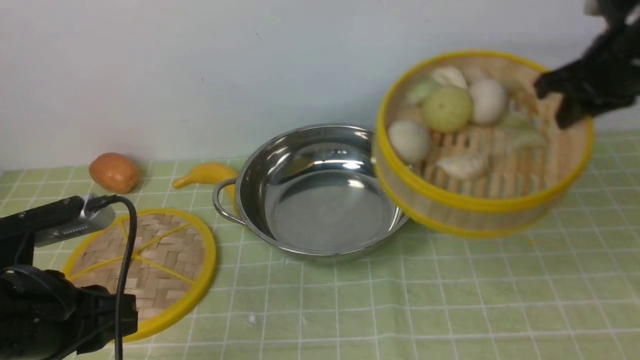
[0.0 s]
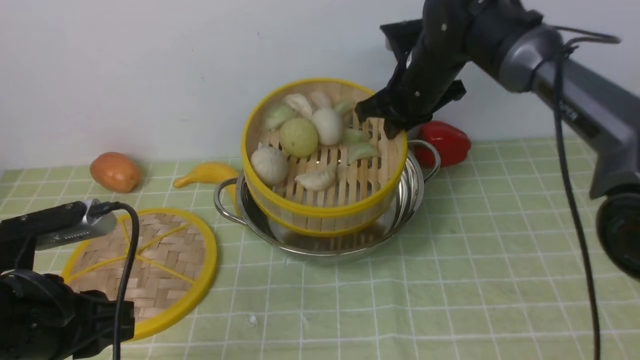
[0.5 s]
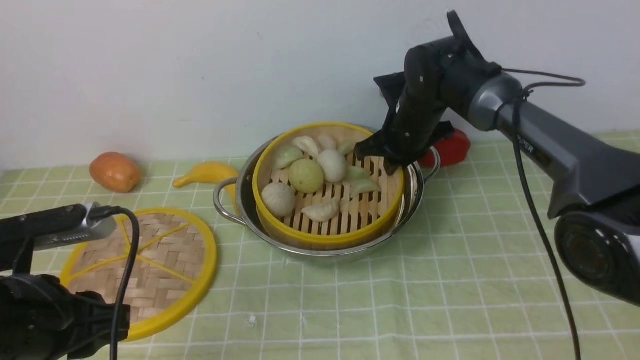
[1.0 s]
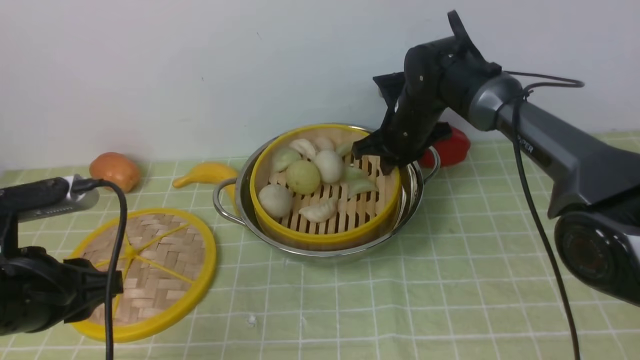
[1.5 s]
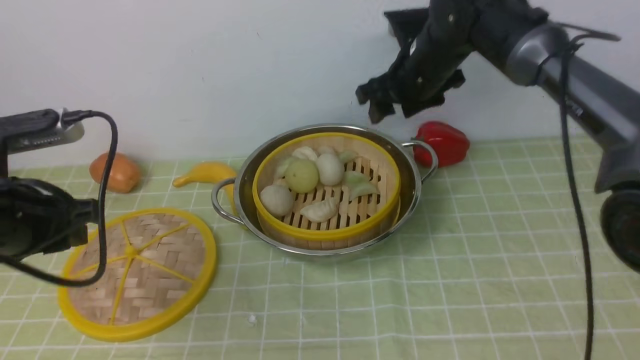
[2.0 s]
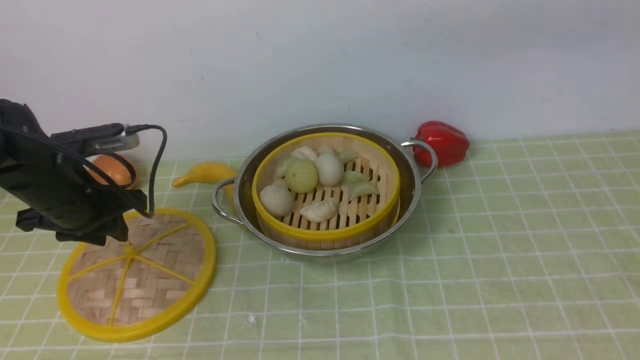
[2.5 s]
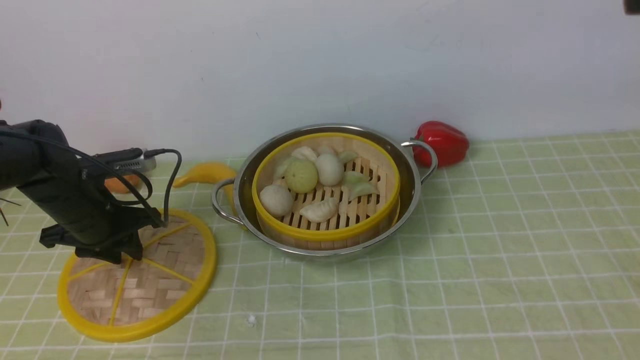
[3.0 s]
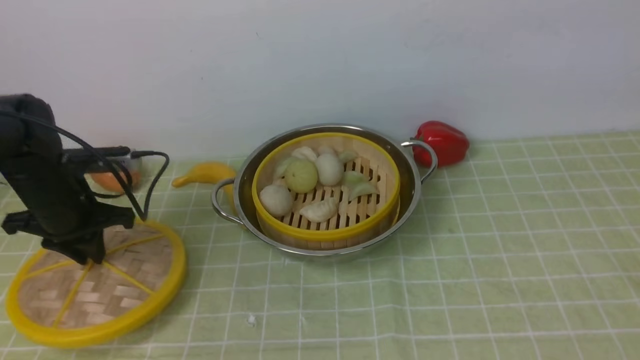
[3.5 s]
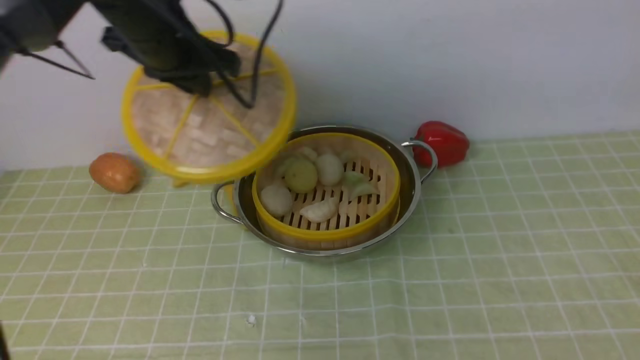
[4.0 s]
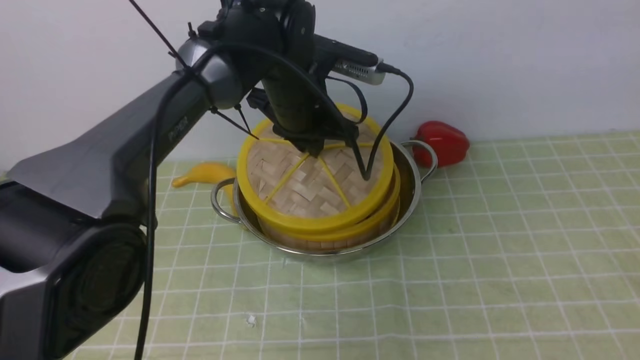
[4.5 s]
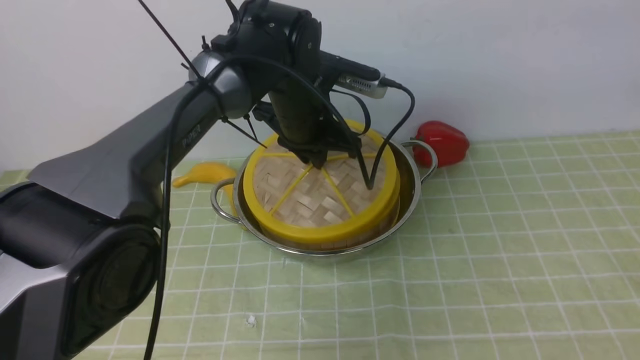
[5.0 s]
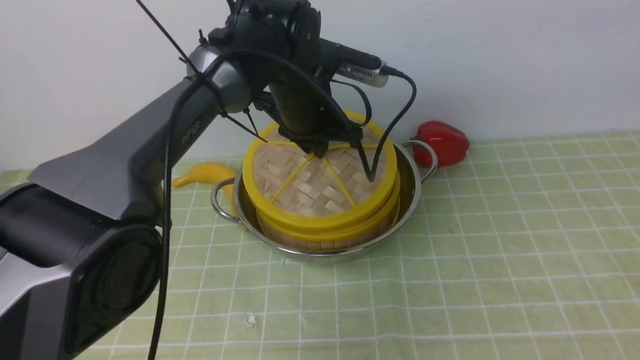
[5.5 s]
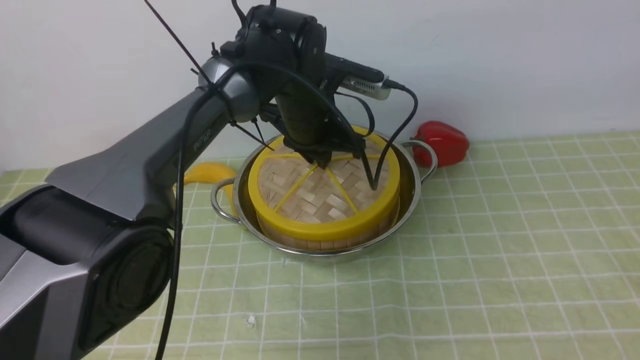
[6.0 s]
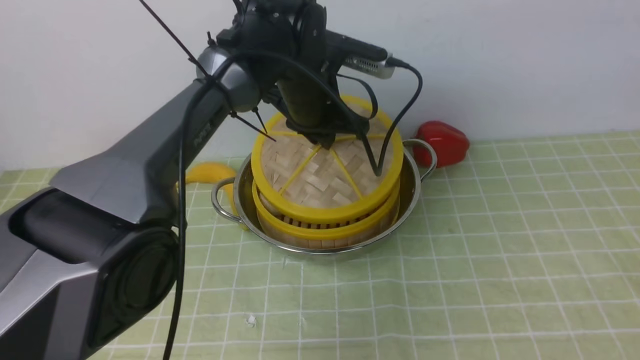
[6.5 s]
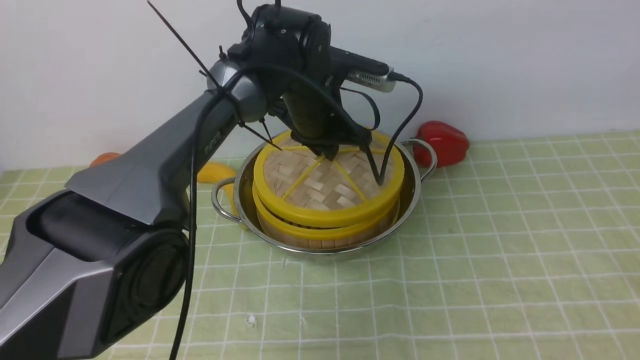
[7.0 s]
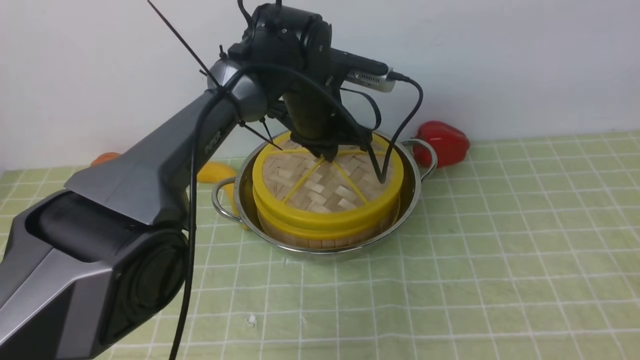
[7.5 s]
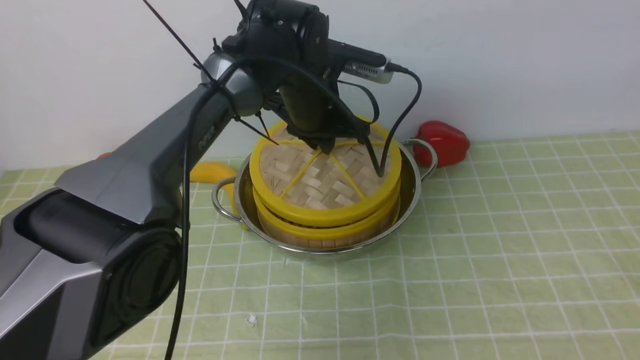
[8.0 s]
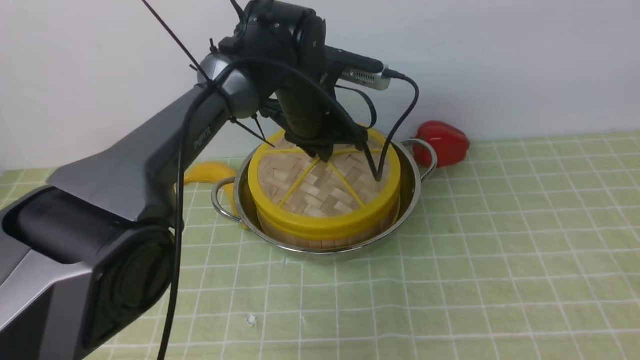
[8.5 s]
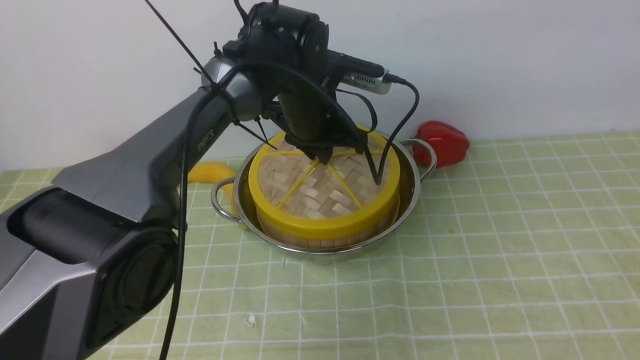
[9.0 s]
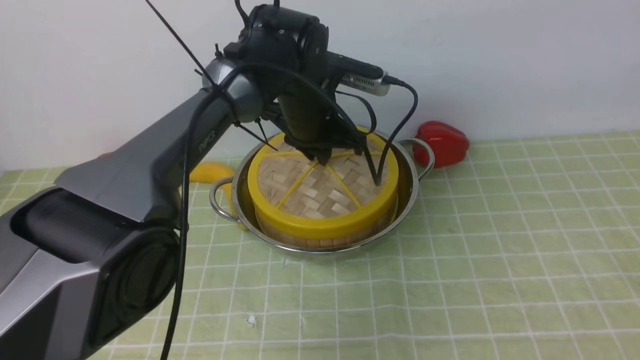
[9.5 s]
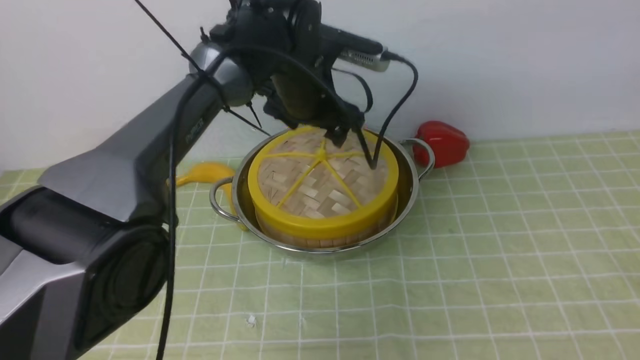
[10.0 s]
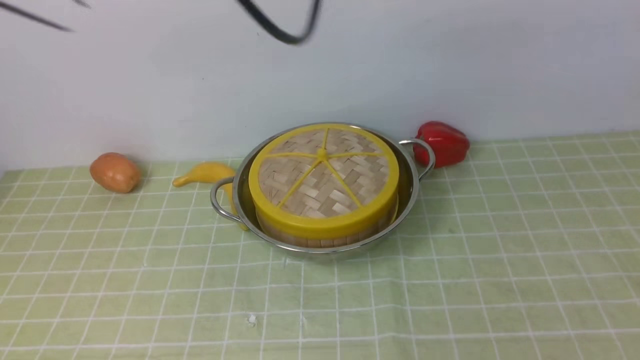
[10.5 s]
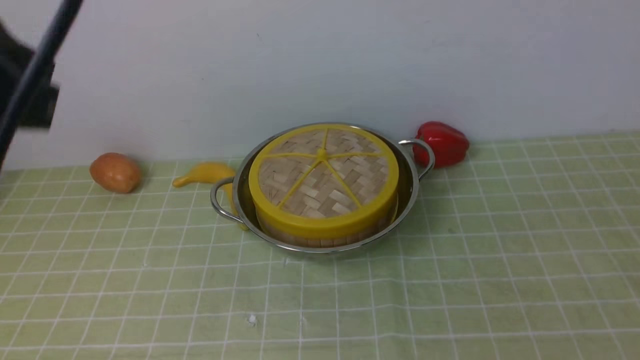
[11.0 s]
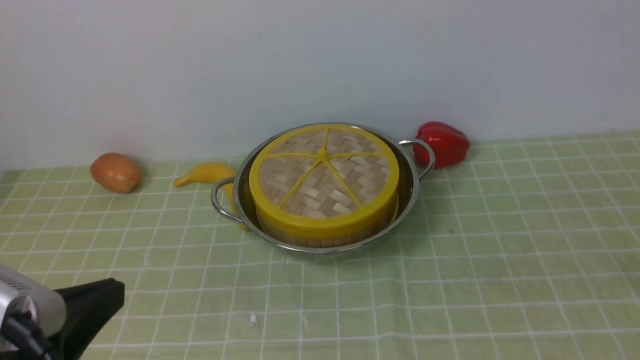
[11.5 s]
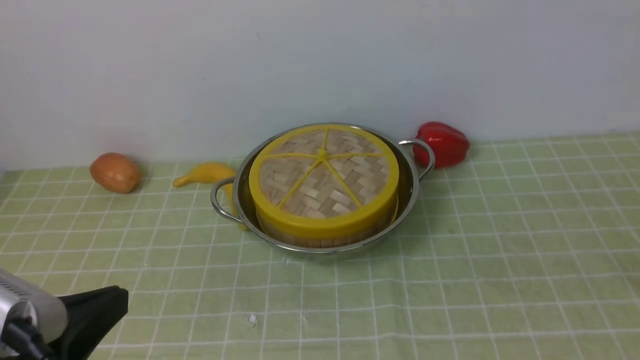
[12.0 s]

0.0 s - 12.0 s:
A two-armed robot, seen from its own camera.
Task of the whole recording: place the steamer in the pot on the green tablecloth, and put the lid on the steamer.
Step, 0.0 s - 1.5 s: use the right arm to put the steamer into the iron steamer pot in the middle.
Step, 2.5 s - 3.5 s: use the left arm to lift the lid of the steamer.
Step, 4.0 s - 10.0 s: use the left arm to place the steamer lid on the steamer.
0.0 s - 2.0 s: The right gripper is displaced to the left and forward by some 15 cm, and opens its fingers; the left gripper is displaced forward by roughly 10 cm.
2.0 s - 4.0 s: The left gripper heads forward and to the right, covering some 20 cm, while the right gripper heads backward, upward and to the right, covering about 40 cm.
4.0 s - 6.0 s: The left gripper shifts some 15 cm to the right and downward.
6.0 s - 8.0 s: Neither gripper changes place.
8.0 s - 10.0 s: The left gripper opens its fingers.
10.0 s - 12.0 s: The left gripper heads backward and to the left, covering roughly 40 cm, and closes its fingers. The right gripper travels downward and backward by approximately 20 cm, and closes.

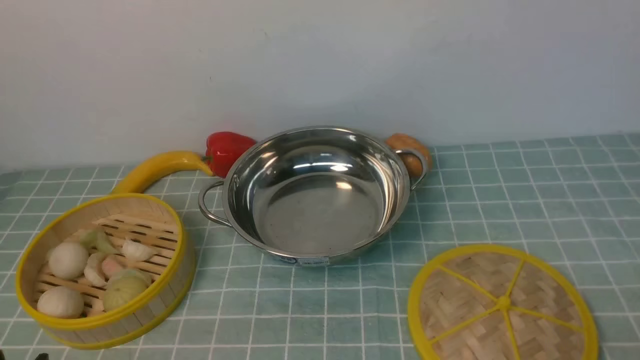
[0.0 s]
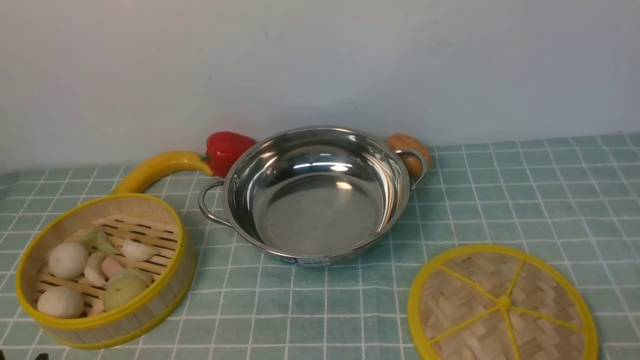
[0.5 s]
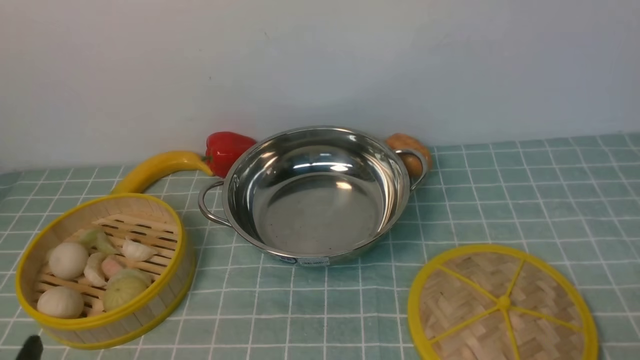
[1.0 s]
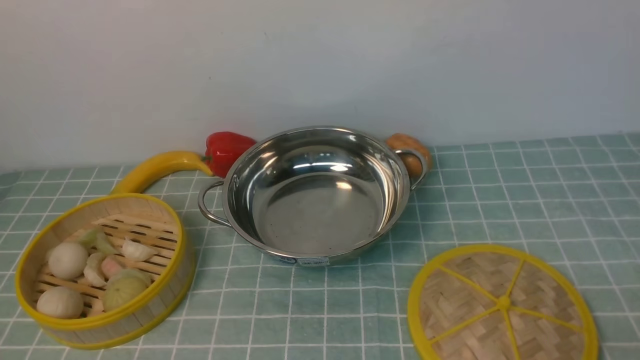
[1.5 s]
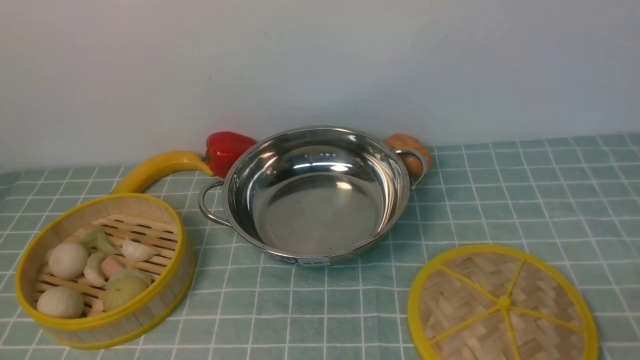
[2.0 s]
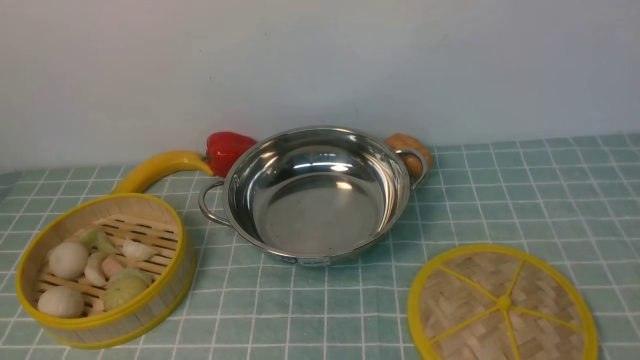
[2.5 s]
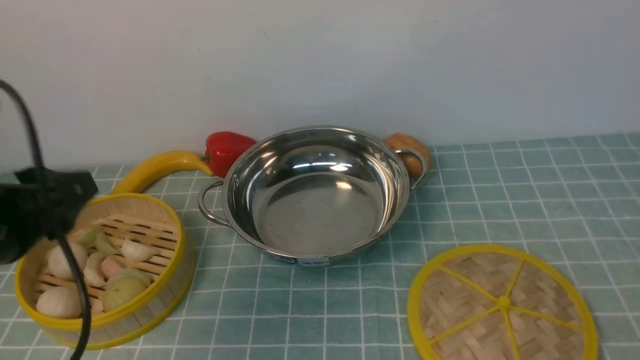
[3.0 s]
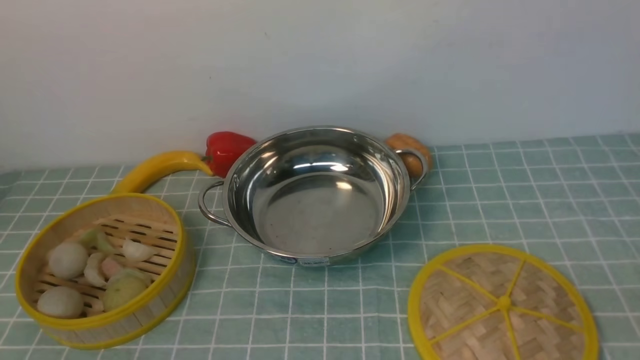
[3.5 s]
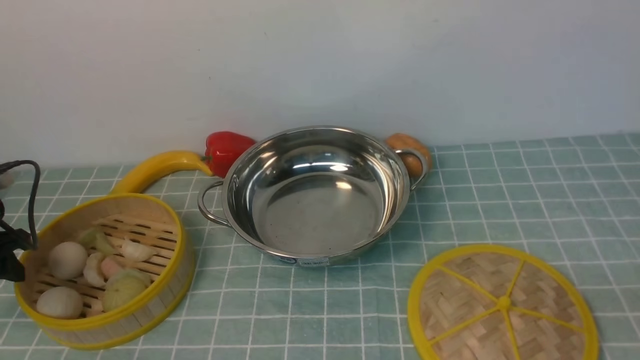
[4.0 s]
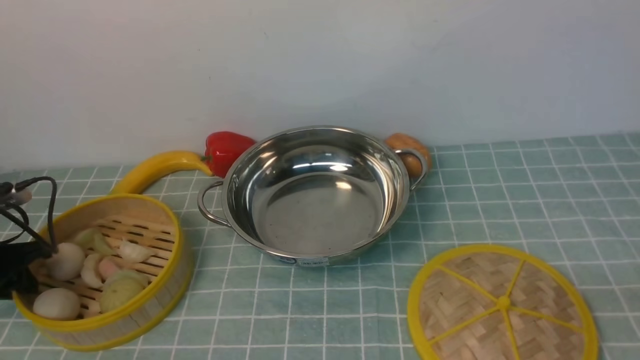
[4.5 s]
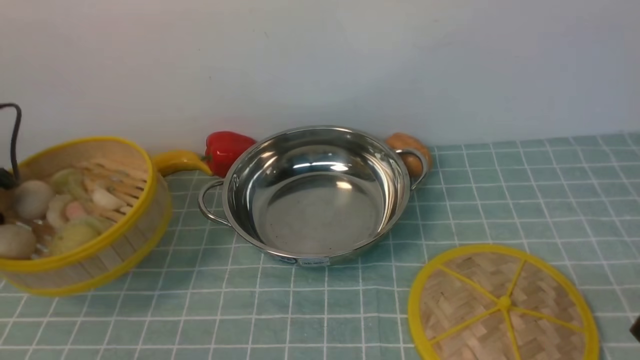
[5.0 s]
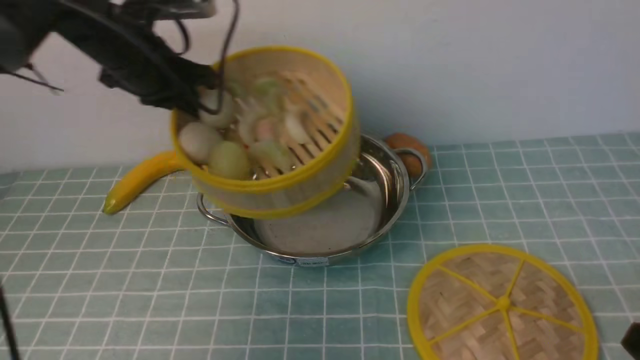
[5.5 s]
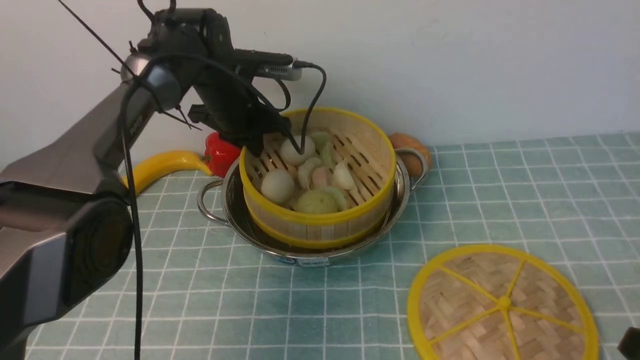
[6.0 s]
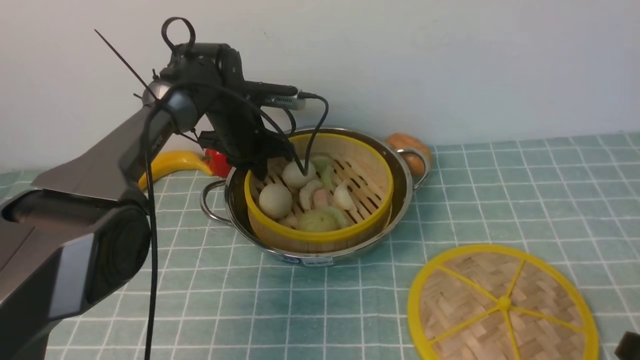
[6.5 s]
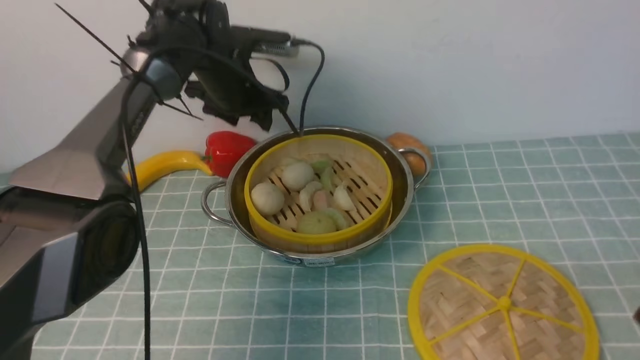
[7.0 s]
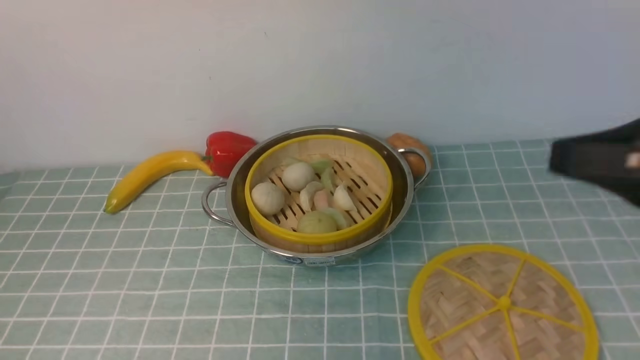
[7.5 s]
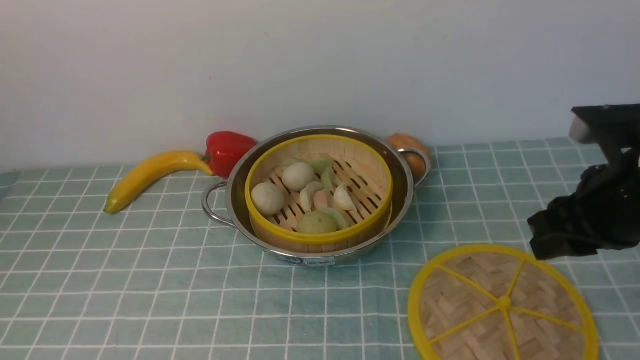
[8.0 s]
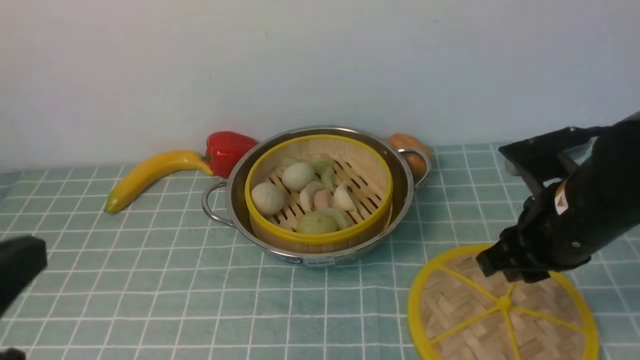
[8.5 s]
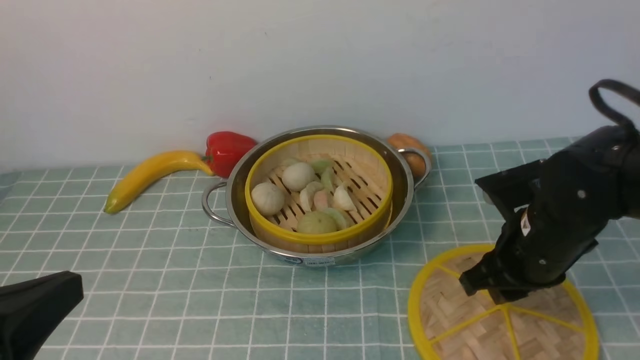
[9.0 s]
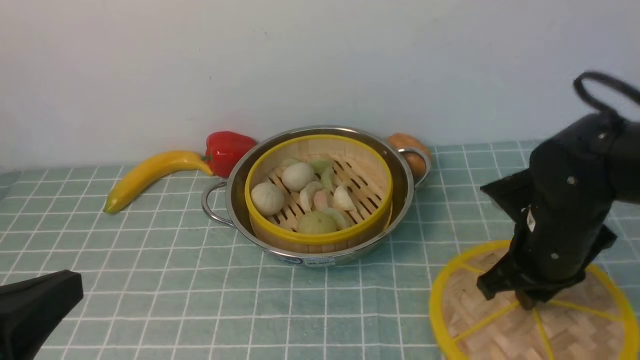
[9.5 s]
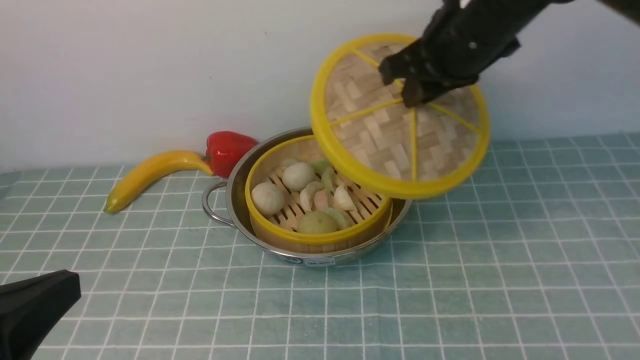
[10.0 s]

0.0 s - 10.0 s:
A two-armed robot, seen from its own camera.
Task of the whole recording: place the steamer in the pot on the blue tablecloth, and put the lid on the steamer.
Step, 0.0 s - 5.0 s: use the left arm to lift the steamer closest to it.
Step, 5.5 s - 7.0 s: use the left arm to put the steamer into the iron steamer pot in the middle.
Step, 7.5 s - 9.5 s: use the right arm to lift the lid of the steamer.
2.0 s - 4.0 s: The left gripper shifts about 35 cm forward, to the left and downward.
4.0 s - 6.0 s: The left gripper shifts some 35 cm to the right and forward, and closes up.
6.0 s - 8.0 s: The right gripper heads forward, covering some 20 cm; the left gripper heads backward and upward, covering about 50 cm, and opens, then closes once more.
8.0 s - 10.0 s: The left gripper shifts roughly 25 cm downward; the right gripper moves forward, to the left and upward, roughly 20 cm.
